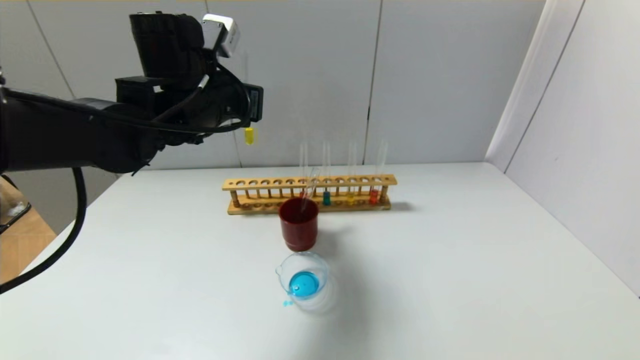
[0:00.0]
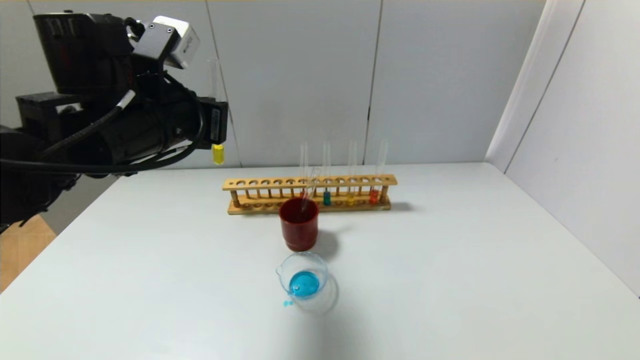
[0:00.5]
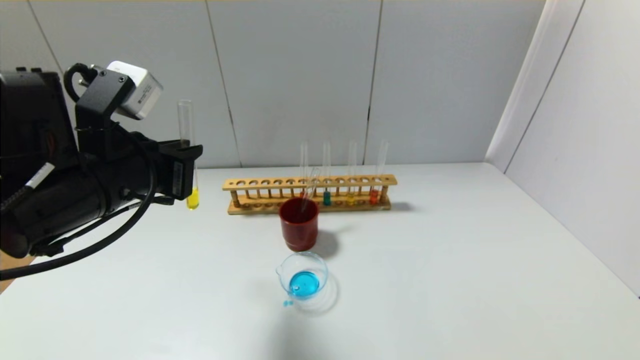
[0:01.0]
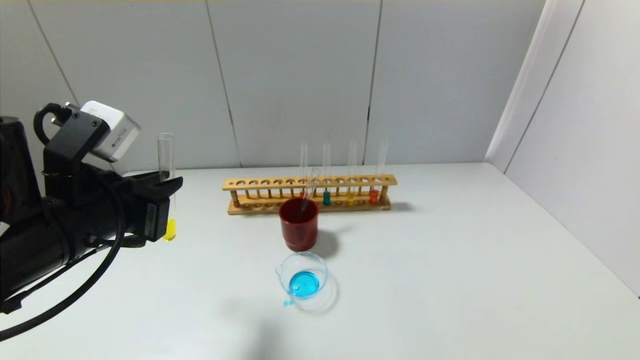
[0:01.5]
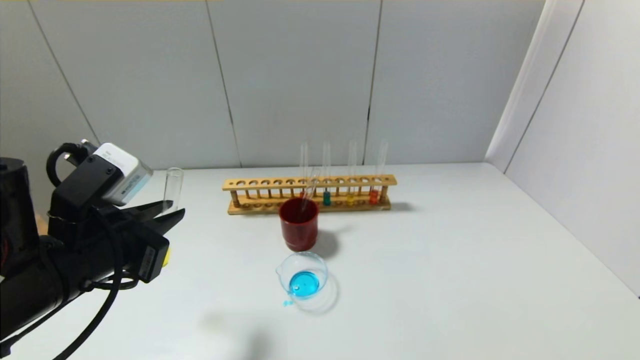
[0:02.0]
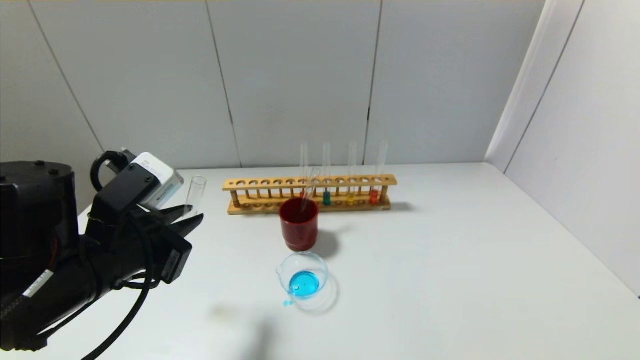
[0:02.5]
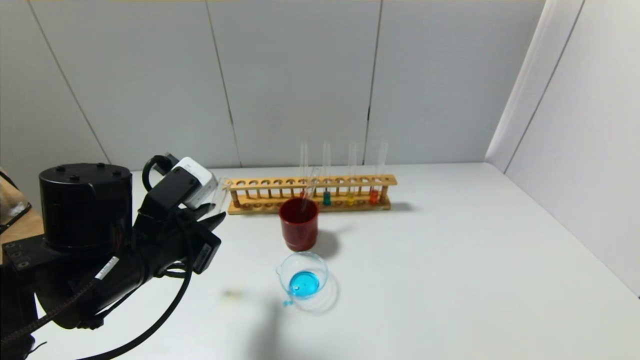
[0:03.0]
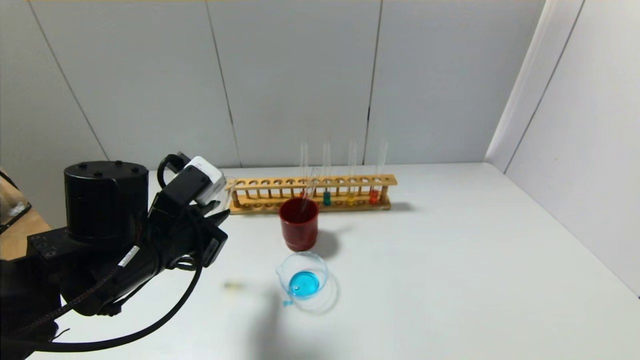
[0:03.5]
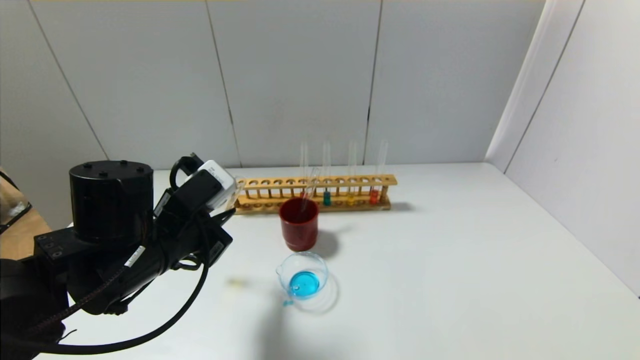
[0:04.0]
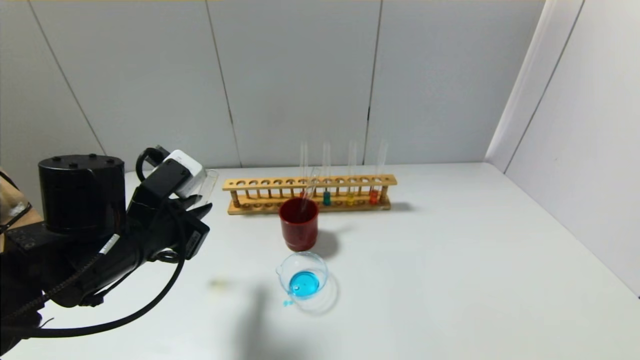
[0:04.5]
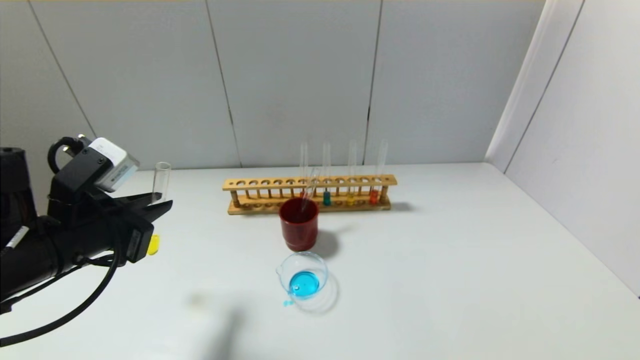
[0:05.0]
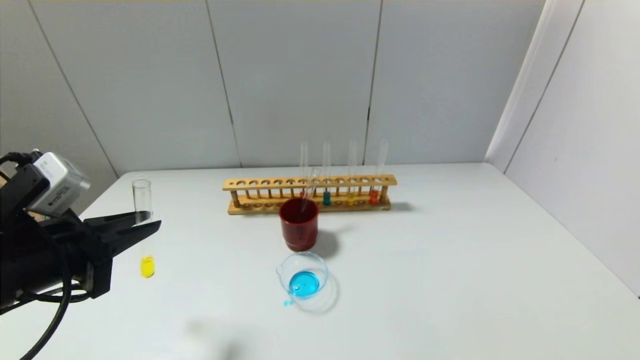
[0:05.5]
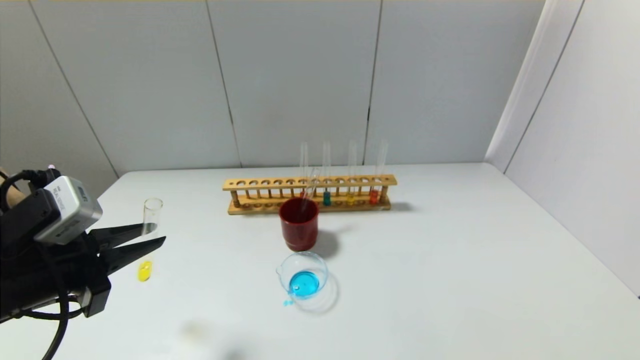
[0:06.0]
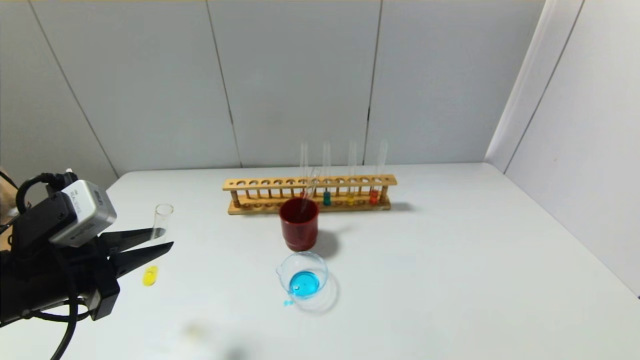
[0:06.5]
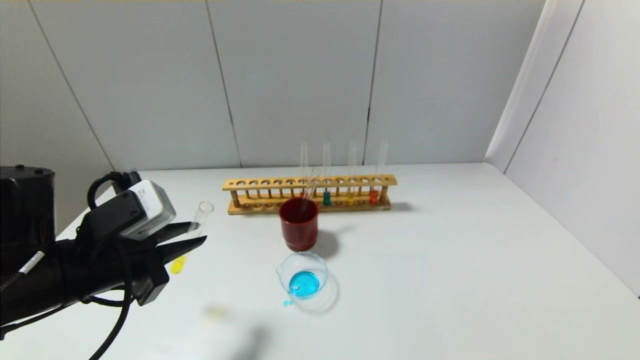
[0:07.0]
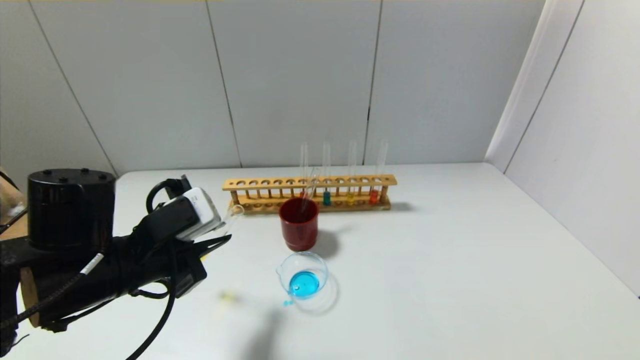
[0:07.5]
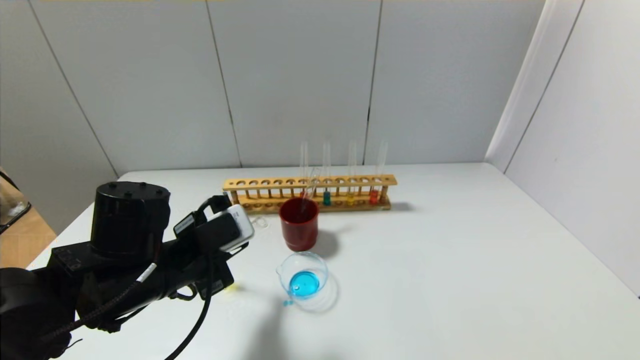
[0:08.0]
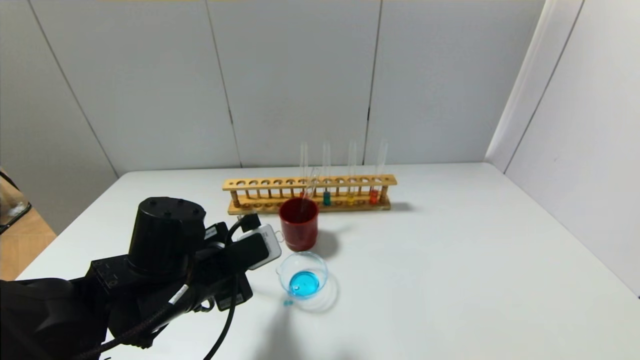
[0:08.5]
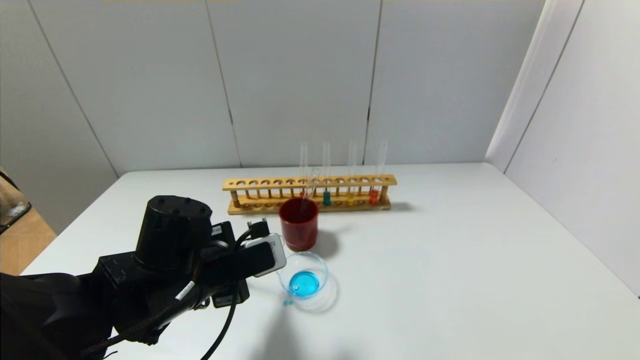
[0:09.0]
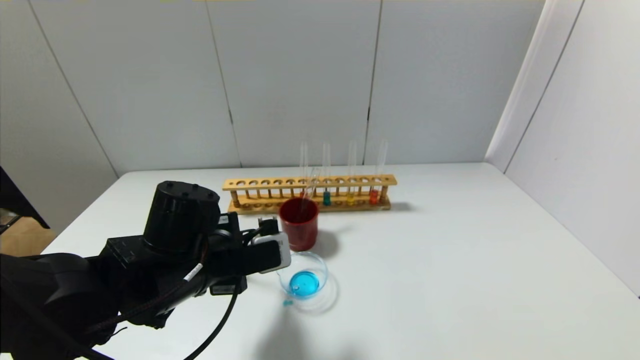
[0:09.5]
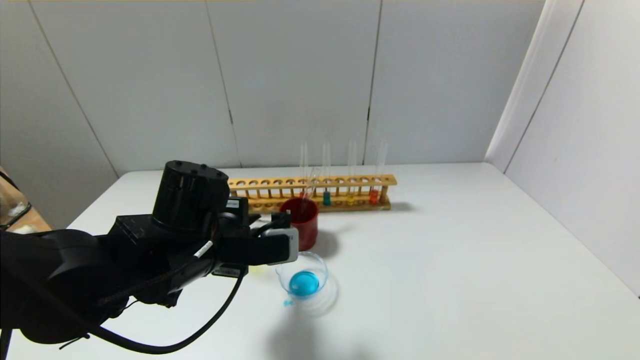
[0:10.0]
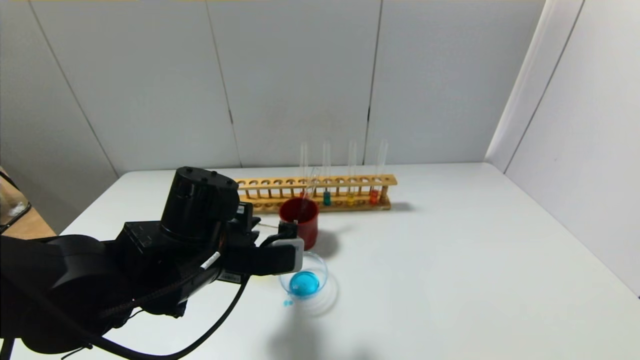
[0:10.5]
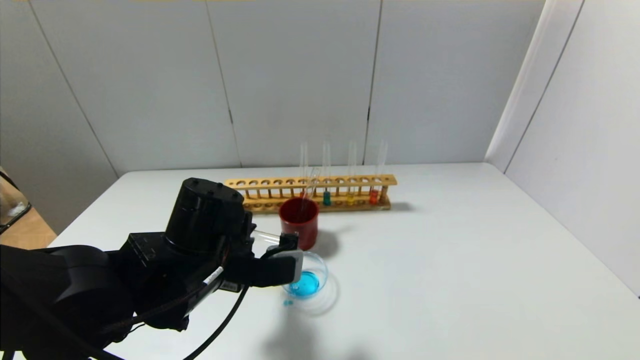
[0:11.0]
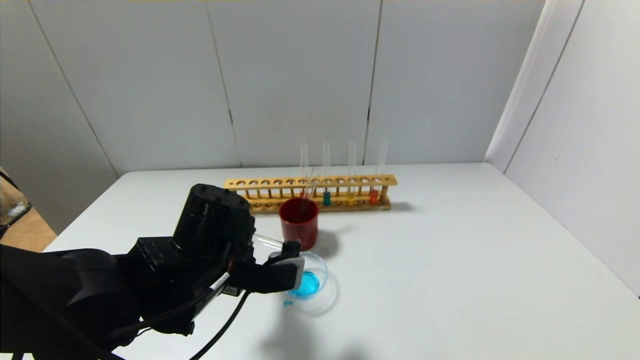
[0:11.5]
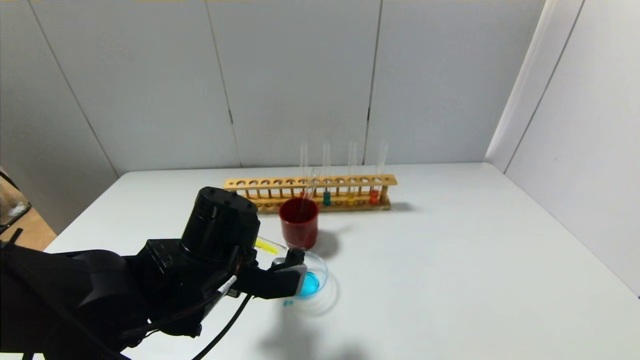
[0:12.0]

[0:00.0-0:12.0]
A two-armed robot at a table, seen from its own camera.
0:00.0 to 0:02.0: The left gripper heads backward, downward and to the left, covering some 20 cm.
0:02.0 to 0:04.0: The left gripper heads forward, covering roughly 5 cm.
0:04.0 to 0:06.0: The left gripper heads to the left and backward, covering about 10 cm.
0:06.0 to 0:08.0: The left gripper shifts some 10 cm to the right and forward.
0:10.0 to 0:12.0: The grippers stay close to where they were, moving slightly.

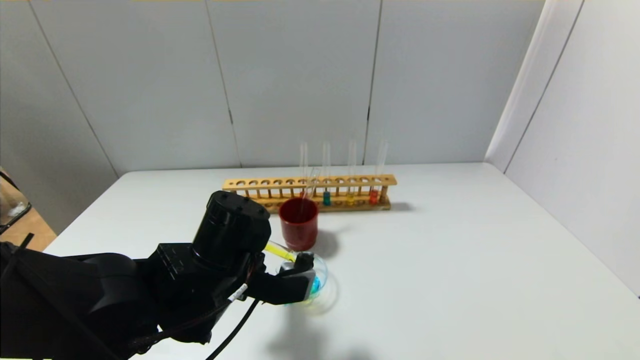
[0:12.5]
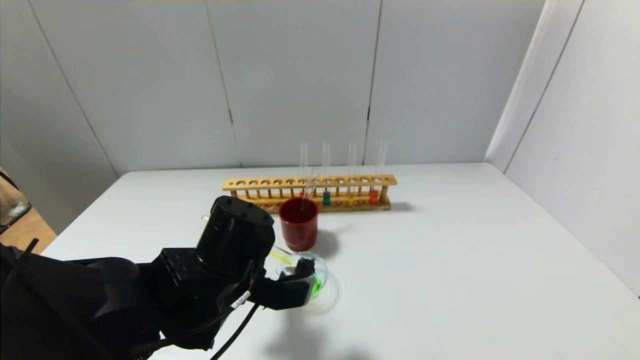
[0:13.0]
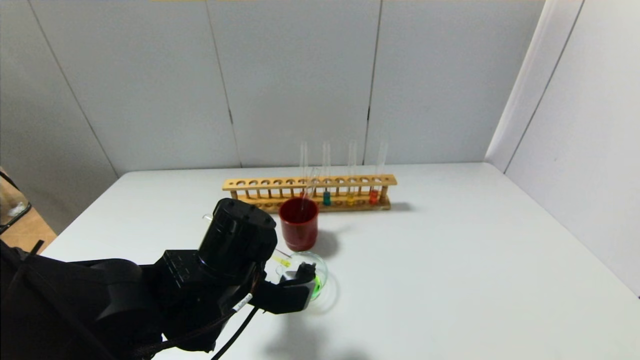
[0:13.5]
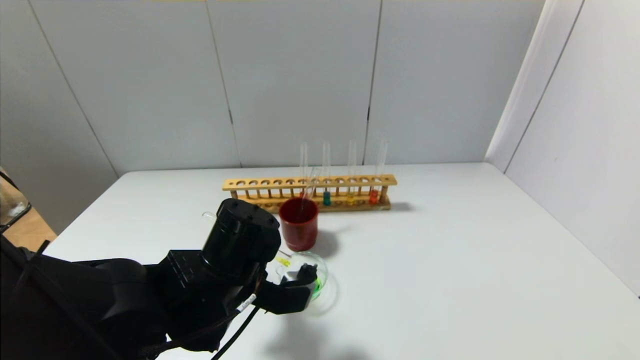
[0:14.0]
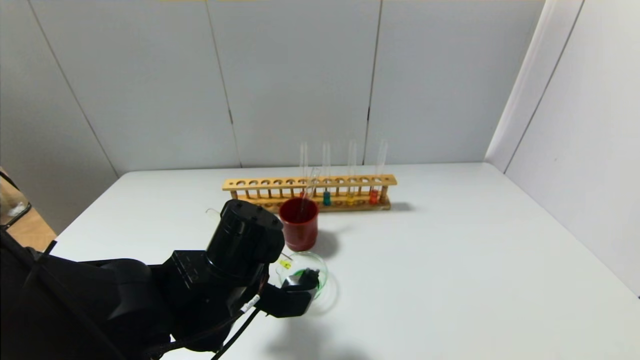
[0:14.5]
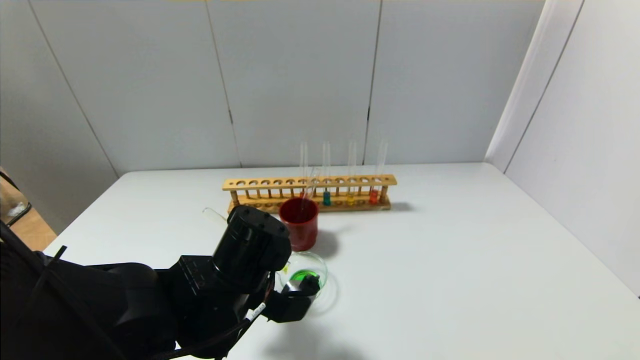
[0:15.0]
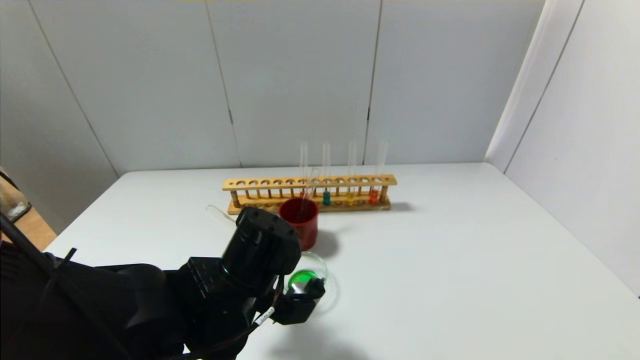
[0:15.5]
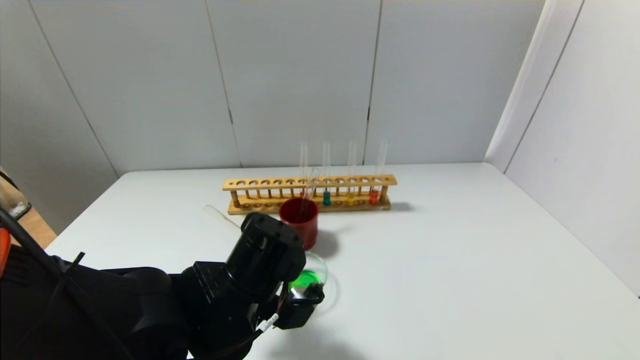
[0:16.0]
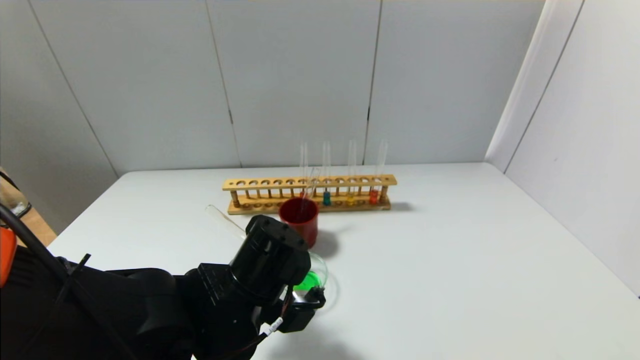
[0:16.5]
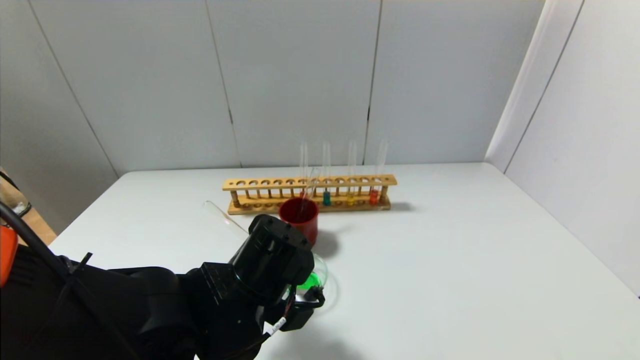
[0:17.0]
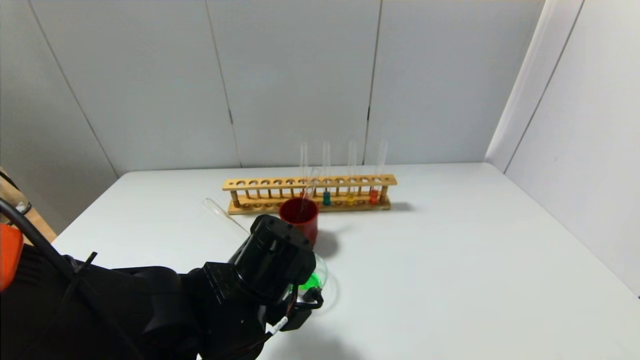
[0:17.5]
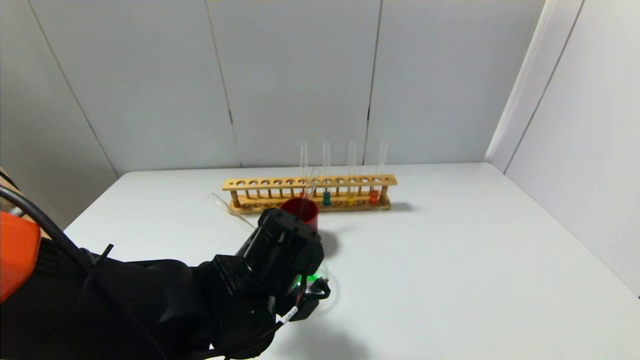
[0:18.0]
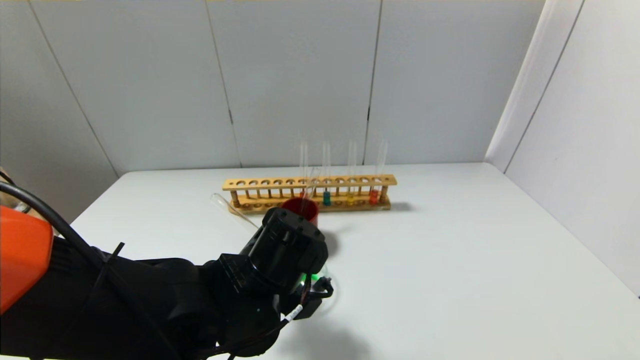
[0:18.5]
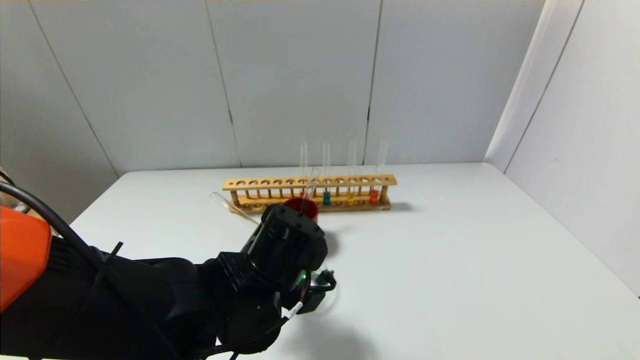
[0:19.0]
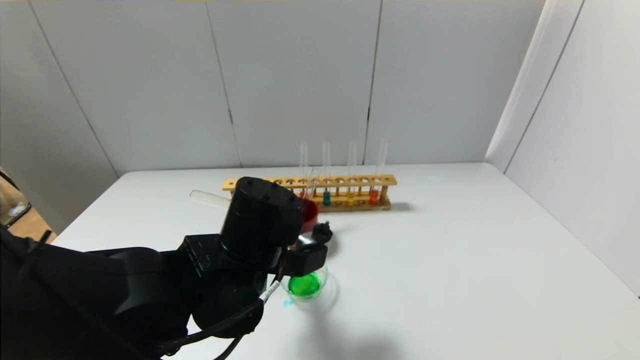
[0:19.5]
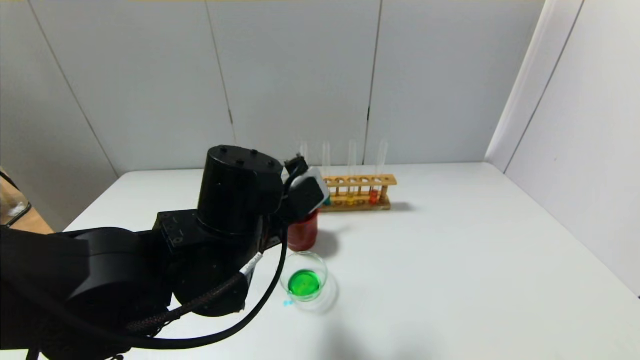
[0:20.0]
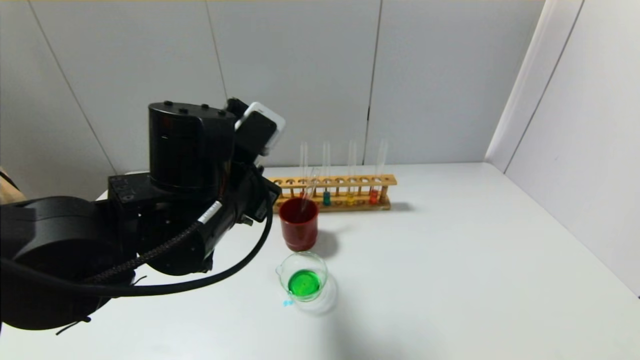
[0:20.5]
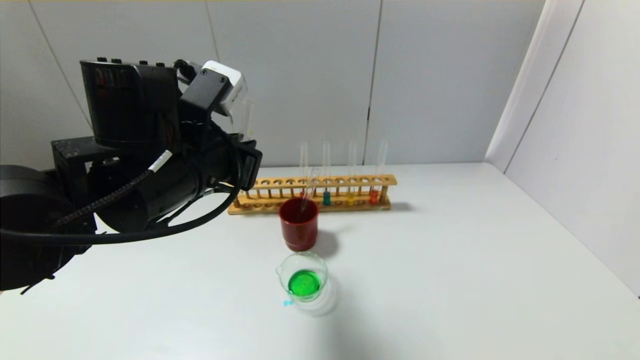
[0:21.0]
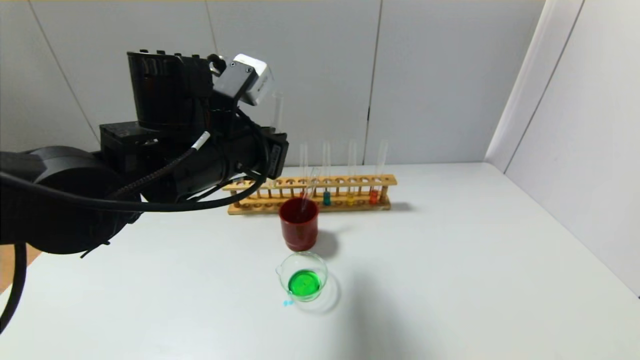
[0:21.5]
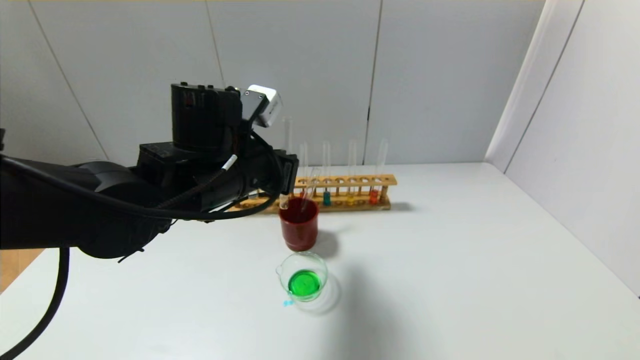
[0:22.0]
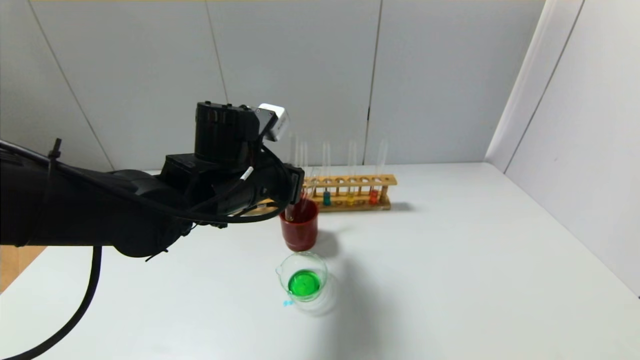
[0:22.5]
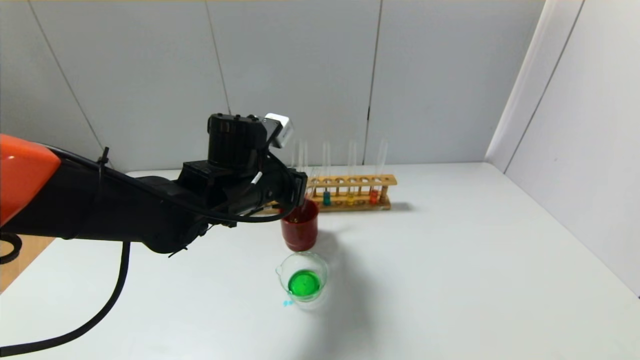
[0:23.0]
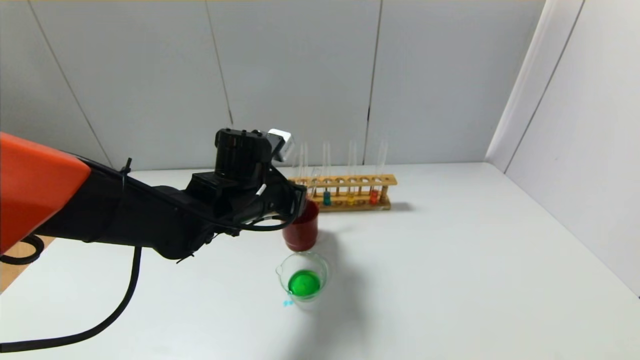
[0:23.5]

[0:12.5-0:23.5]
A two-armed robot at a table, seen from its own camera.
Step, 0:12.5 to 0:19.0: Pour the yellow reagent into the graduated cylinder with the left gripper.
0:12.5 to 0:16.0: The grippers make only small movements.
0:16.0 to 0:18.0: The grippers move only a little.
0:18.0 to 0:20.0: The left gripper goes about 5 cm upward.
0:20.0 to 0:21.5: The left gripper heads upward and forward, covering about 10 cm.
0:21.5 to 0:23.5: The left gripper shifts approximately 10 cm downward and forward.
